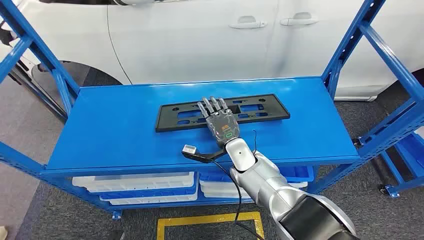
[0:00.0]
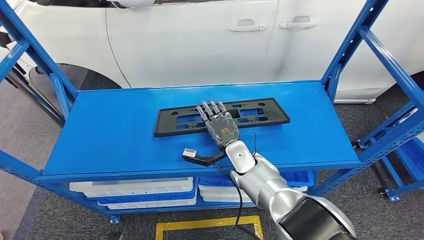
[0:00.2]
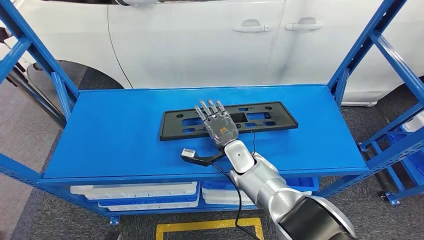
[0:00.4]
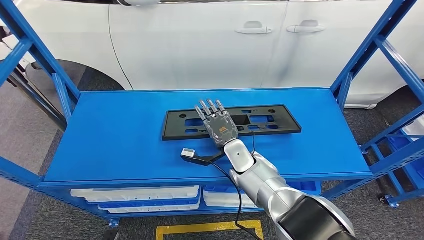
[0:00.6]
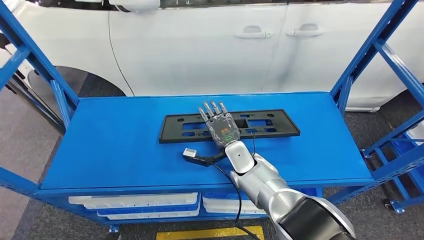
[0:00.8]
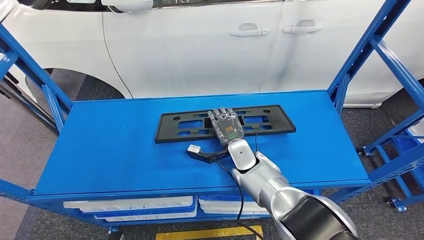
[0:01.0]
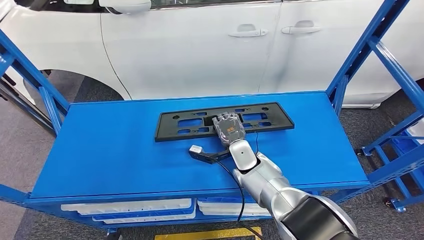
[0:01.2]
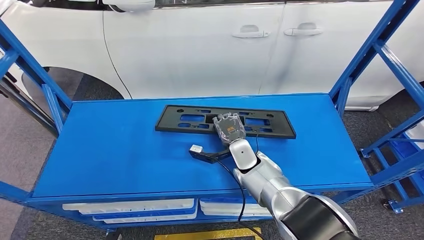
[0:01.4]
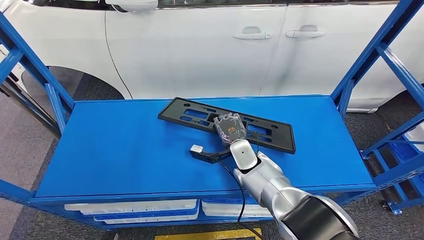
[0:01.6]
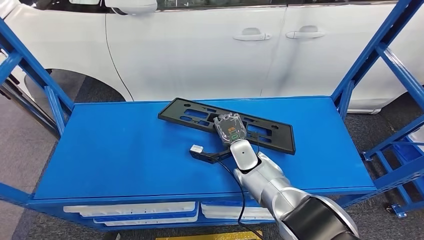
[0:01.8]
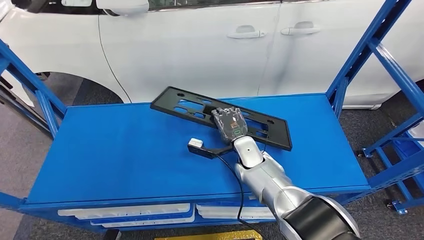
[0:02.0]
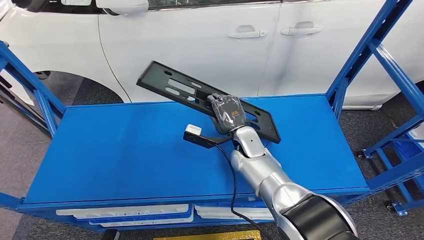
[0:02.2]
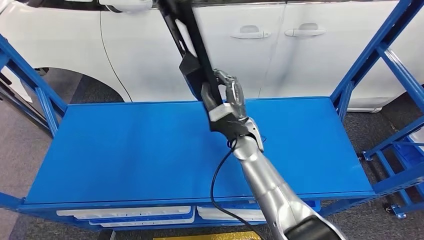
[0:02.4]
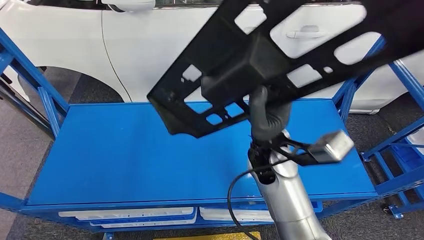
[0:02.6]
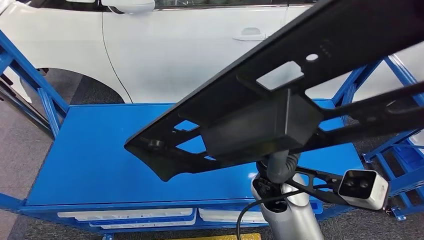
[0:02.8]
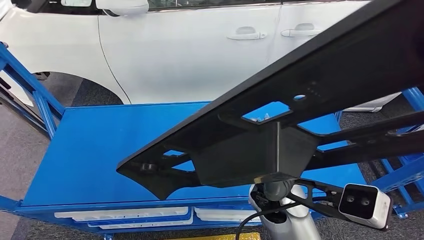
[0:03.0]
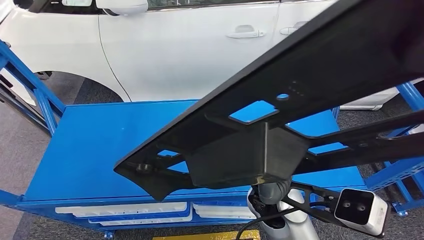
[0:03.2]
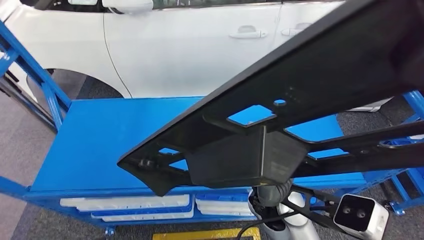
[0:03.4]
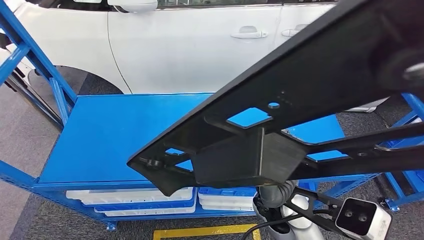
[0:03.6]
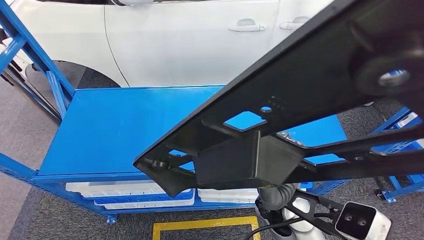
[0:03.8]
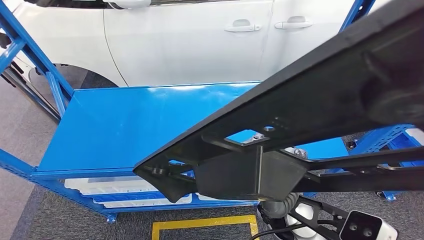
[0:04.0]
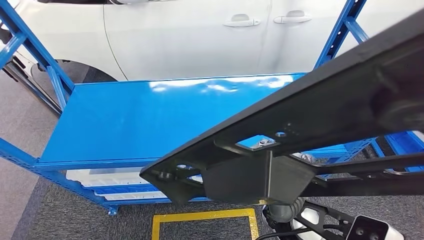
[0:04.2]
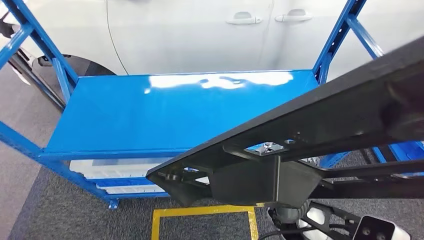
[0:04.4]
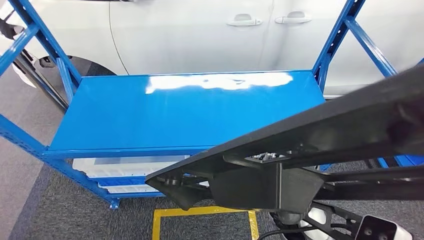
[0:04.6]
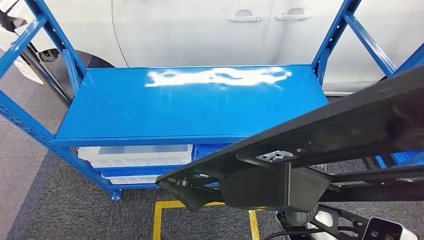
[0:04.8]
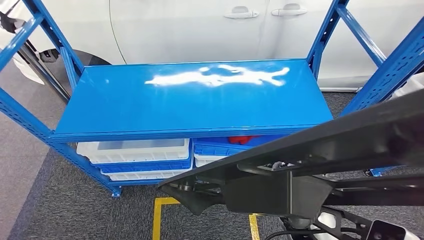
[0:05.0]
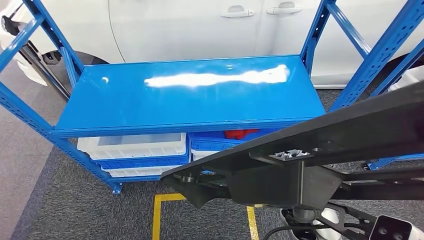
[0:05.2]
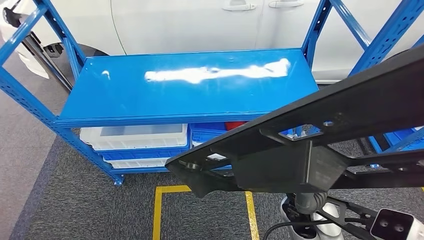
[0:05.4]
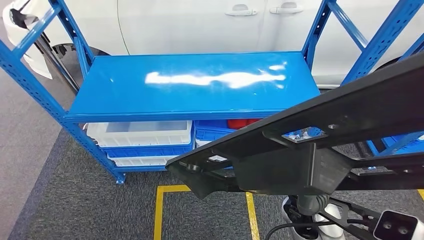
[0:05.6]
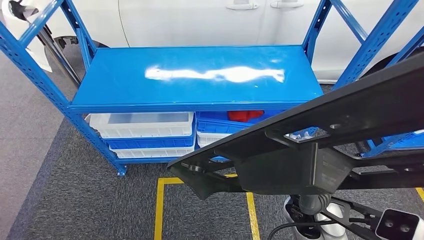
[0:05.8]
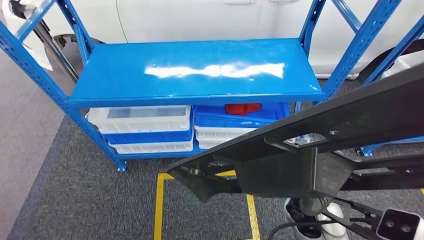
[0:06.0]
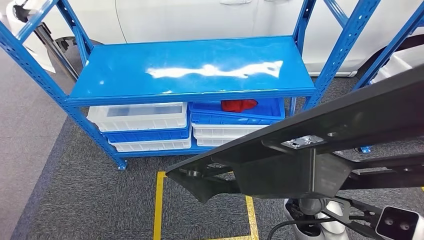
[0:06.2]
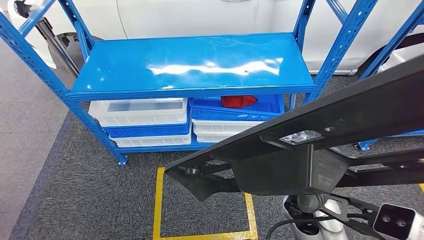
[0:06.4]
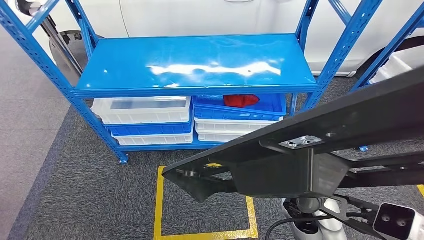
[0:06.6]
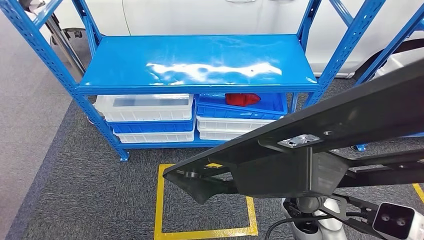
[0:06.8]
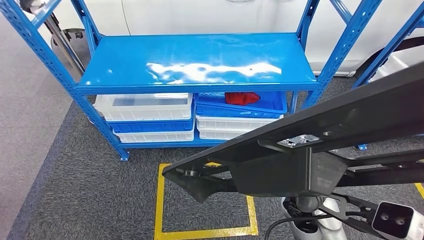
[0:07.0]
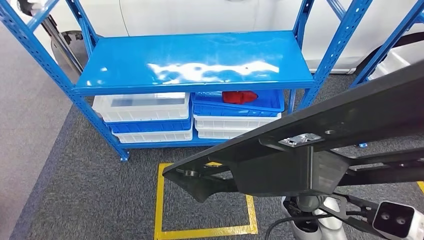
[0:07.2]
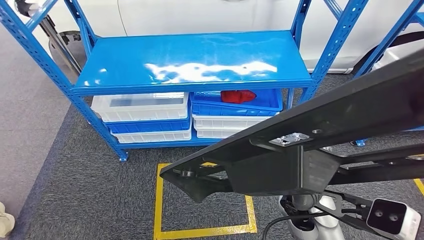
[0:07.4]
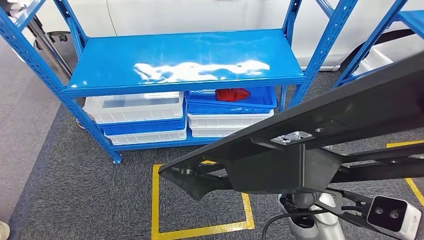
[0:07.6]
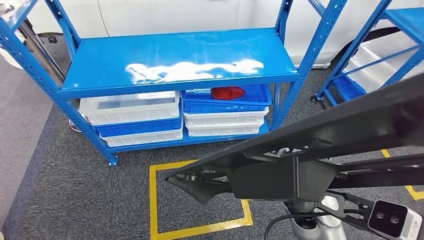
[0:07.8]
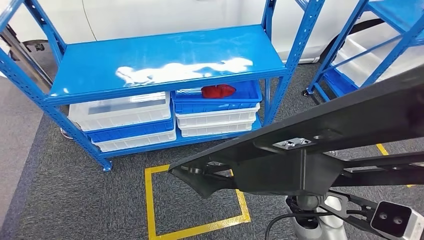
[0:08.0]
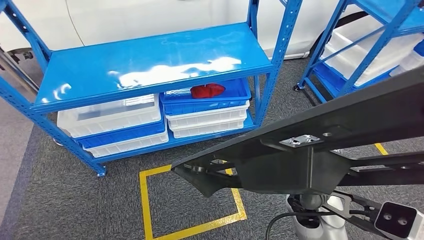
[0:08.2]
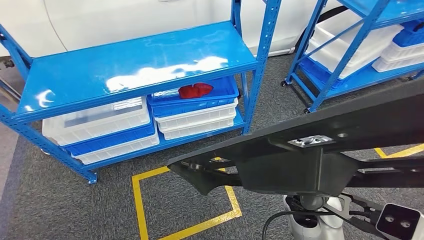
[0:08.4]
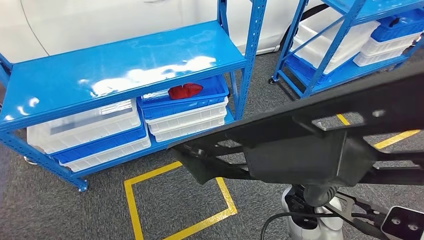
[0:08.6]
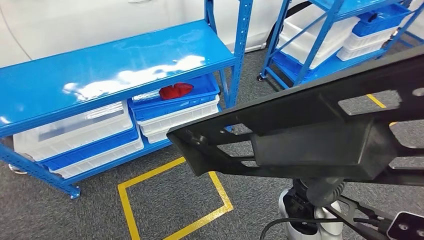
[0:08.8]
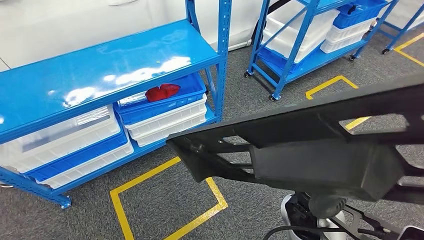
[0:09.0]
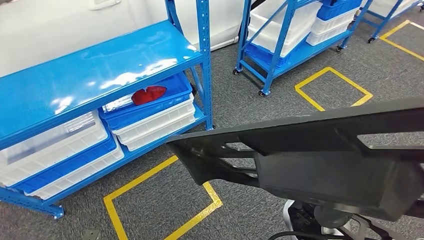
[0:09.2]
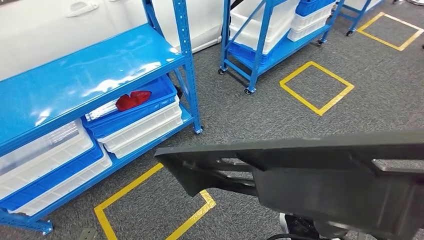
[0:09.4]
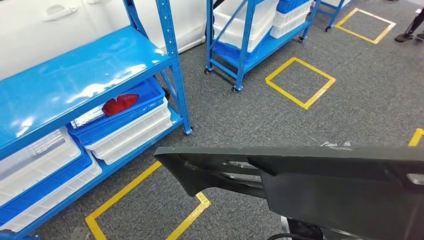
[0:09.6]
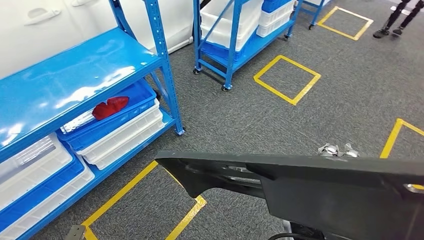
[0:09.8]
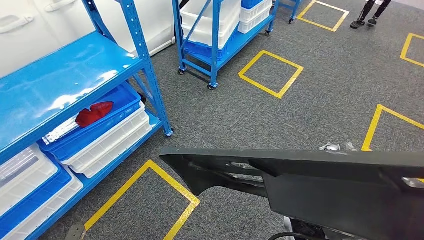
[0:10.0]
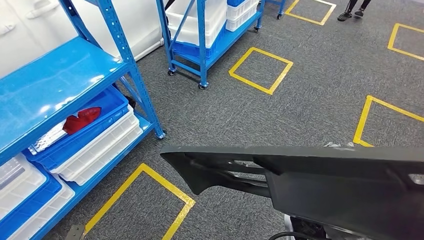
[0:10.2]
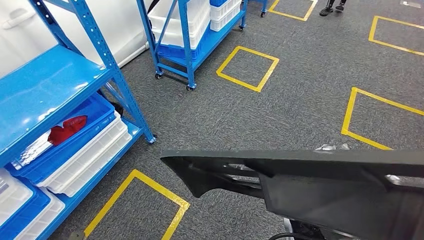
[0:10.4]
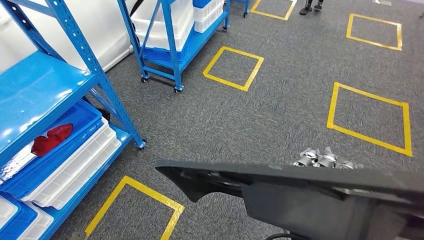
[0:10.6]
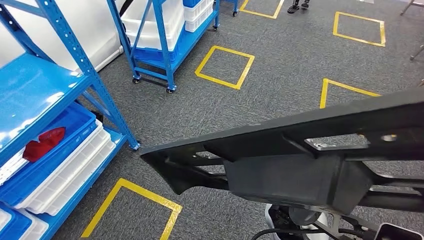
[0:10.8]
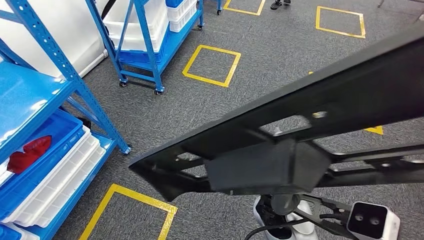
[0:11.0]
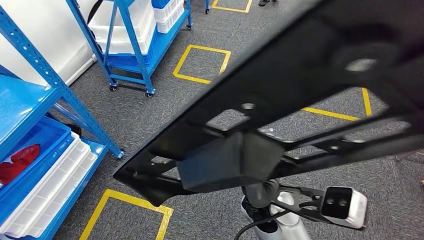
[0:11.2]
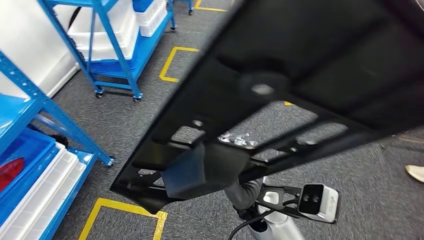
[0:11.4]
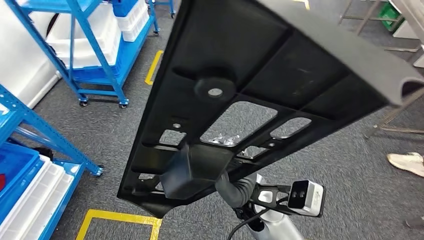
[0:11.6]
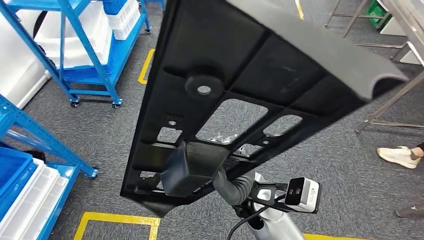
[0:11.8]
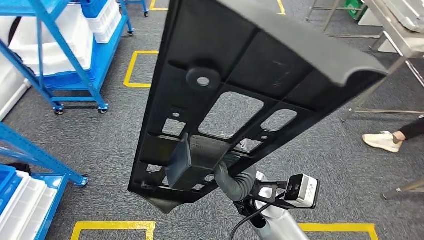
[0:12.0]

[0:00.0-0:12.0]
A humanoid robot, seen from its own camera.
Step, 0:00.0 to 0:03.8: Pick up the large material from the shelf.

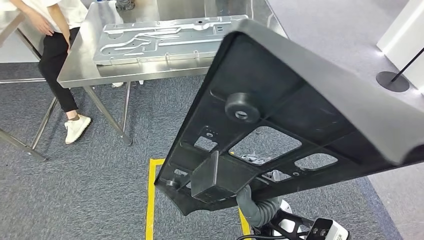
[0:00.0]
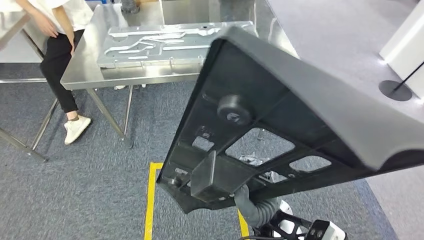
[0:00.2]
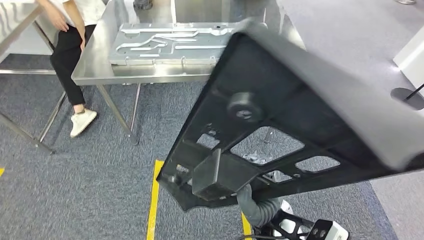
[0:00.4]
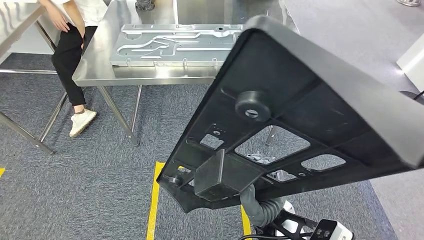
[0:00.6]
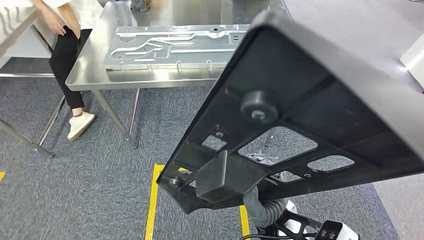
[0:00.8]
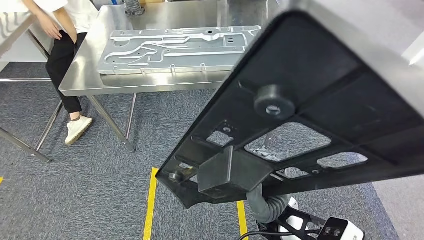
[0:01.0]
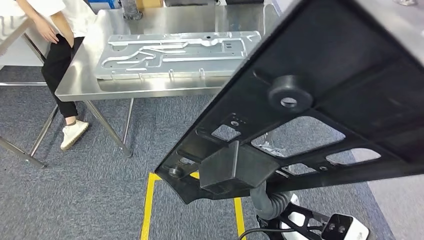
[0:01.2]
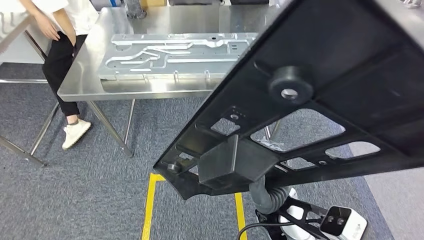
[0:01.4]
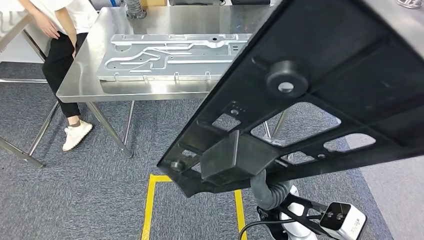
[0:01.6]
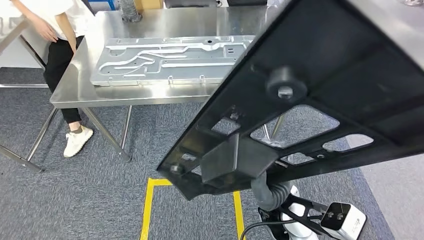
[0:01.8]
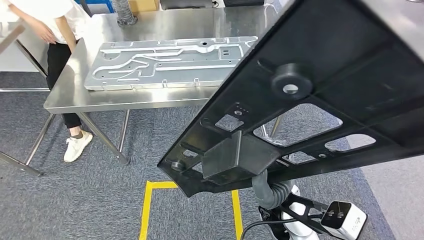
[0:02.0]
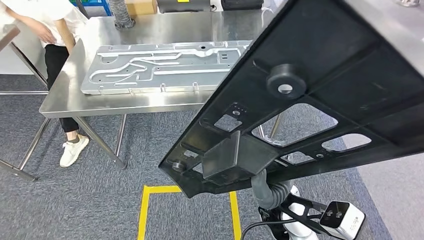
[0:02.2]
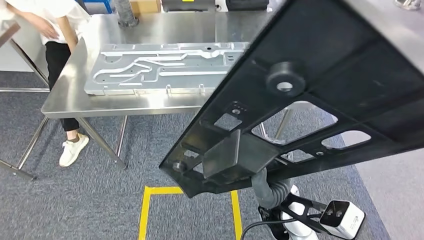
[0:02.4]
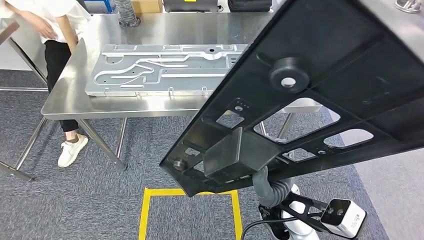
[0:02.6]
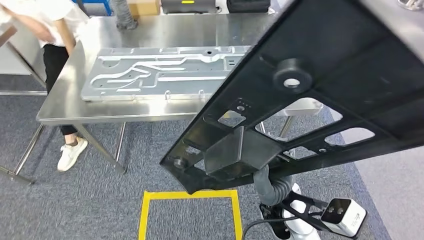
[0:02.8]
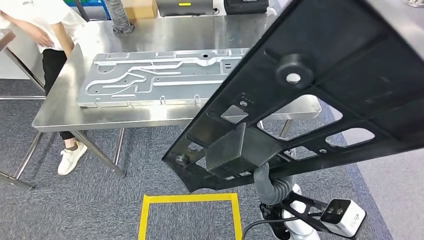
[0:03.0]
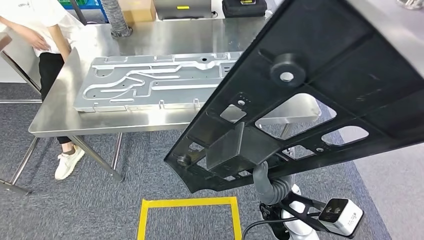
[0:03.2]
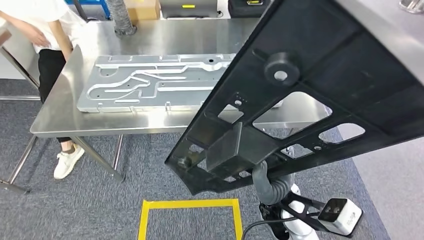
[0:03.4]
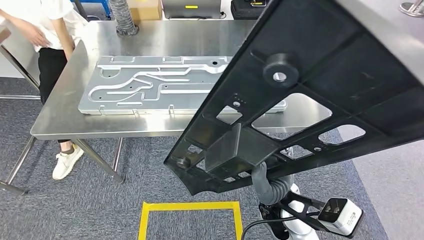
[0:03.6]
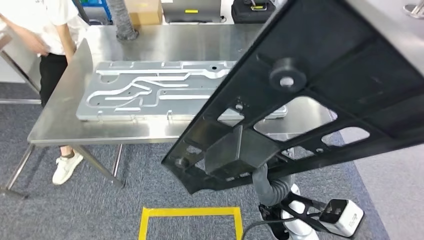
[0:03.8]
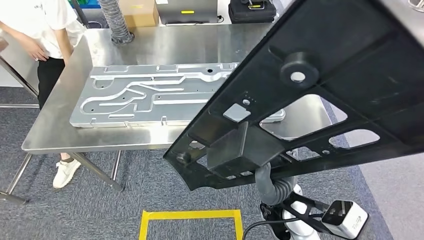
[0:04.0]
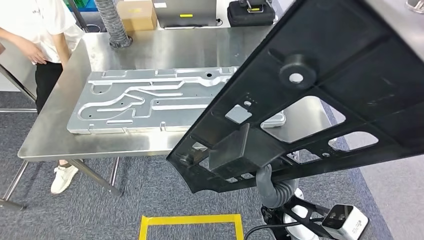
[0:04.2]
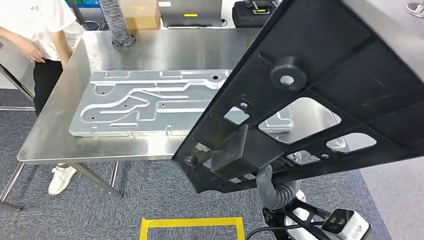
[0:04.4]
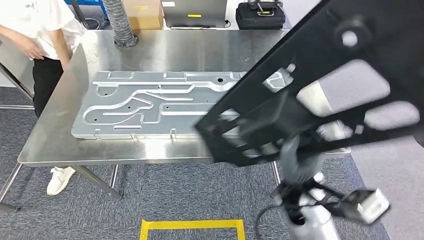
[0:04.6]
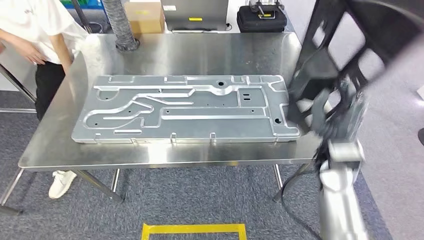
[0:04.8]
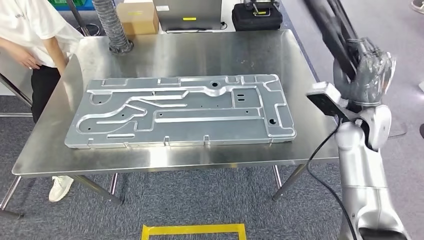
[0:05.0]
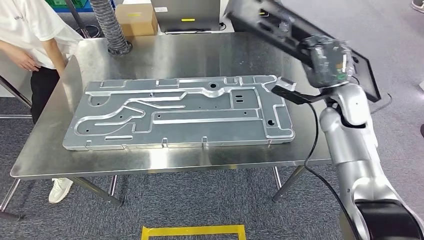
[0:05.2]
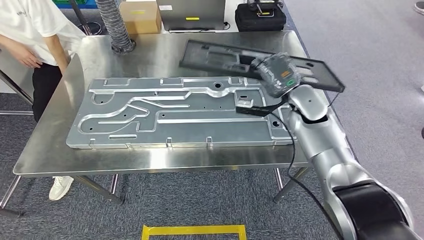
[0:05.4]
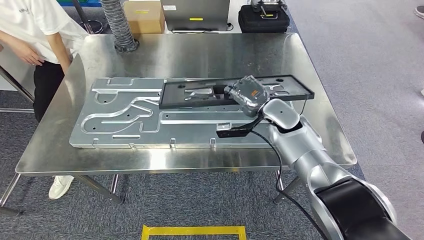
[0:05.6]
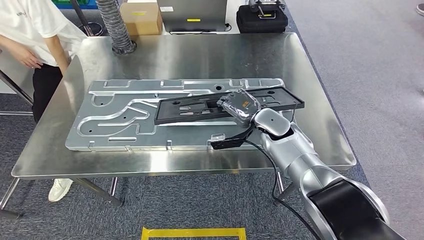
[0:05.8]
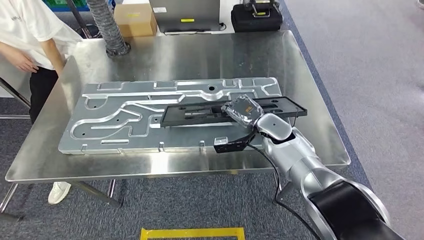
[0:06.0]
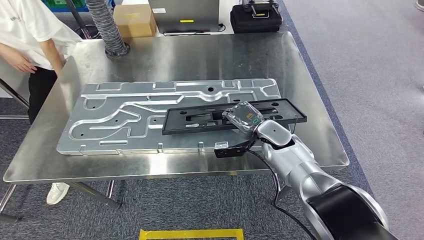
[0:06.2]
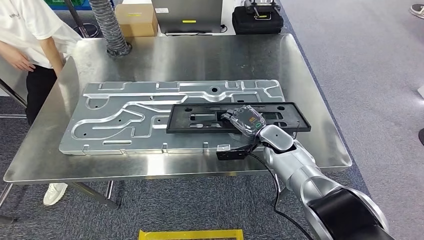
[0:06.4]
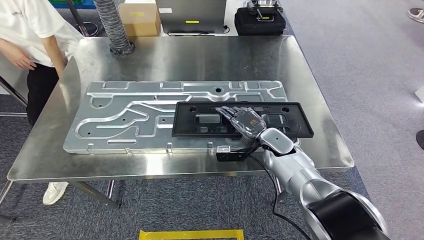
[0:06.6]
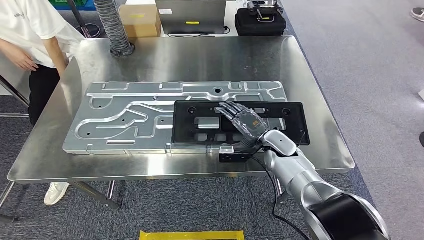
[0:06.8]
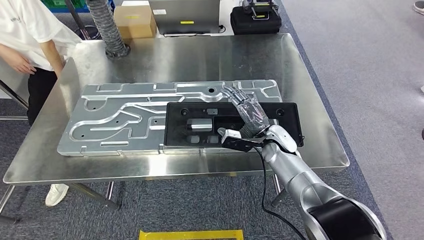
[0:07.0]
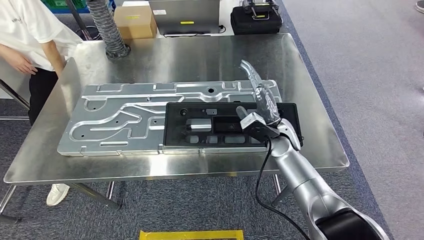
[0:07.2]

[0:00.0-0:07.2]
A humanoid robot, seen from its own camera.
Step, 0:00.0 to 0:02.8: Move the large material to the front of the workbench.
